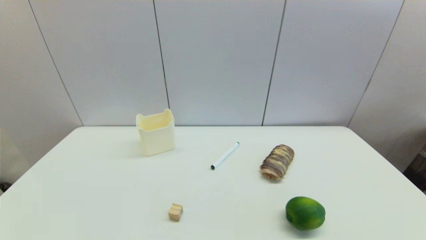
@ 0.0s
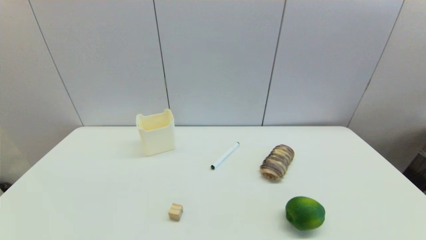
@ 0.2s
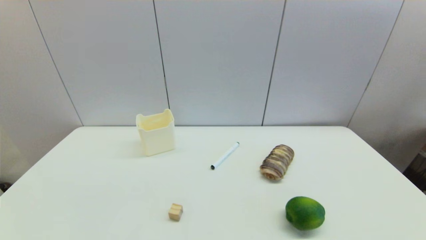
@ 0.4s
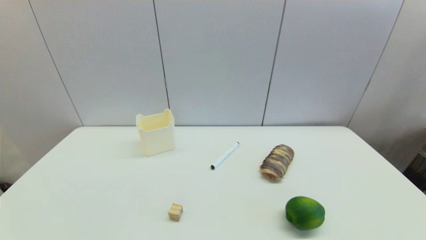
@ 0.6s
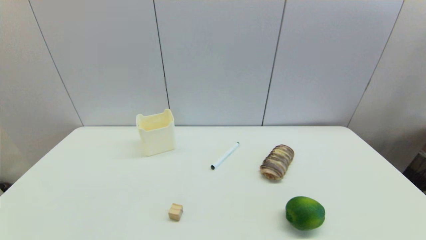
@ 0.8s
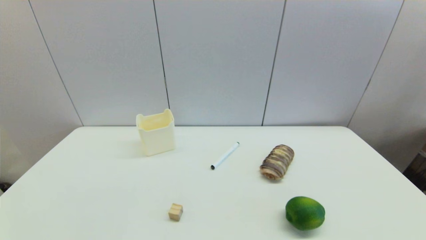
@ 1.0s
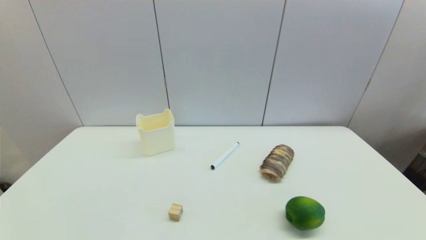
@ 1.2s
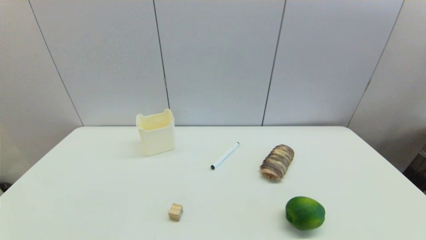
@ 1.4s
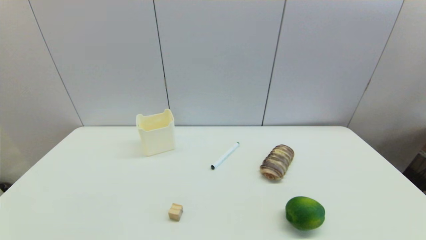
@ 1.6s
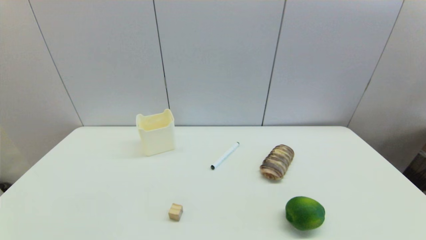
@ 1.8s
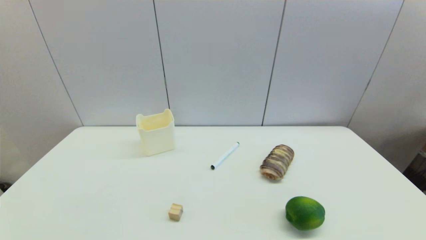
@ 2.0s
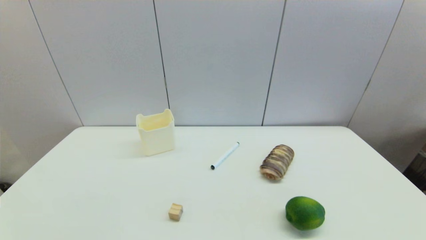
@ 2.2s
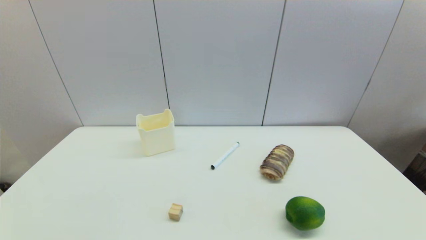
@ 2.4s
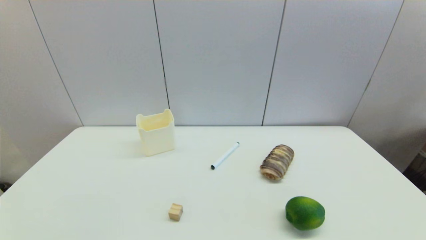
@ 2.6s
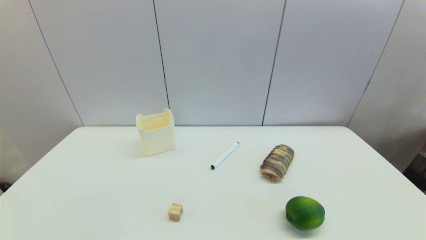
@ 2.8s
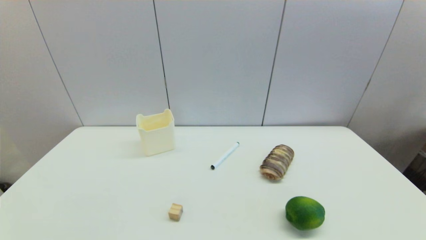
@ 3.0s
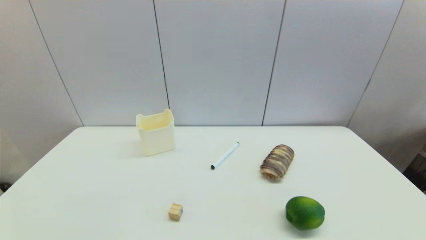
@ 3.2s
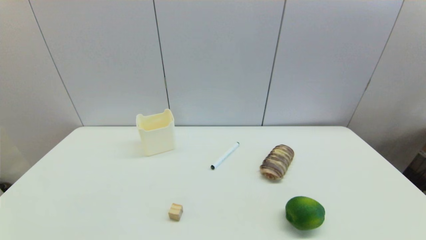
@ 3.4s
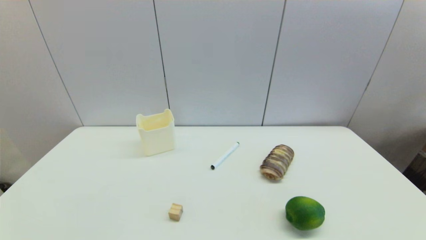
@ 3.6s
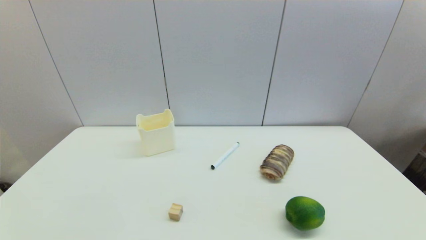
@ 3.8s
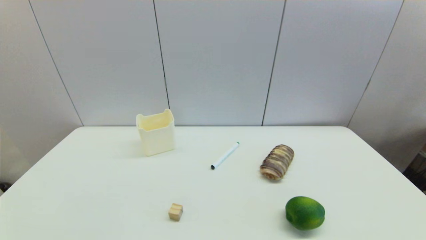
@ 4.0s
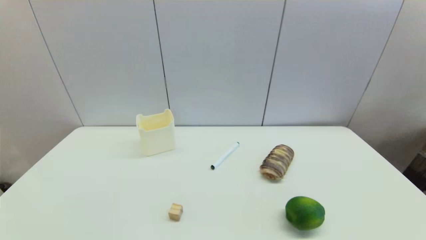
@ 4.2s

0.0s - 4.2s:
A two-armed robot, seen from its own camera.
2.8s - 4.2s: Neither gripper changes place.

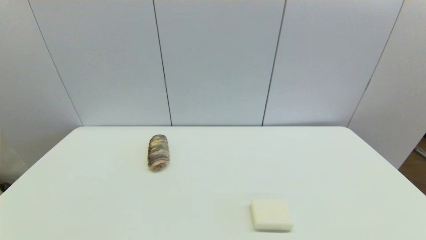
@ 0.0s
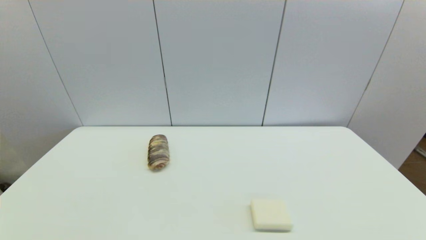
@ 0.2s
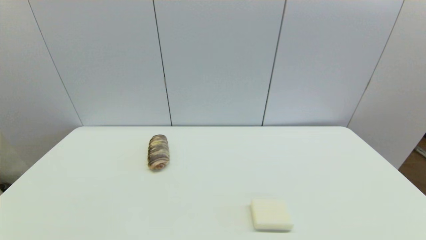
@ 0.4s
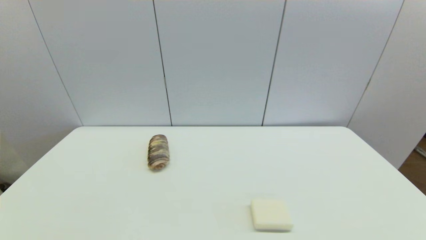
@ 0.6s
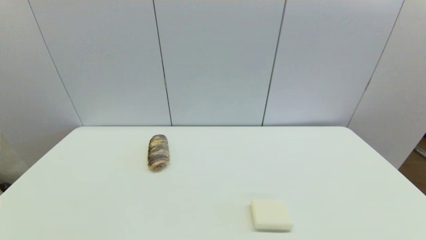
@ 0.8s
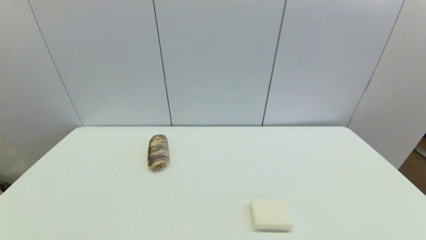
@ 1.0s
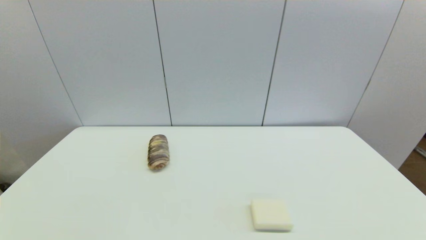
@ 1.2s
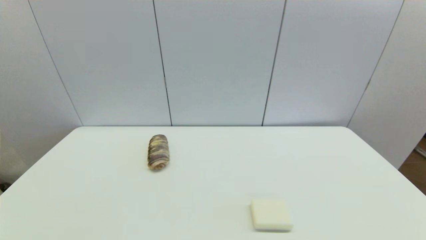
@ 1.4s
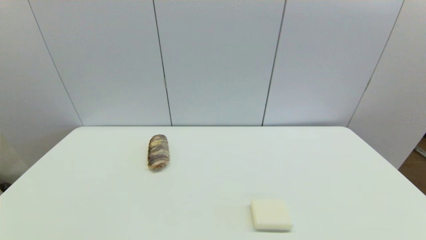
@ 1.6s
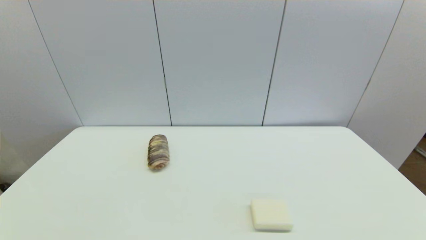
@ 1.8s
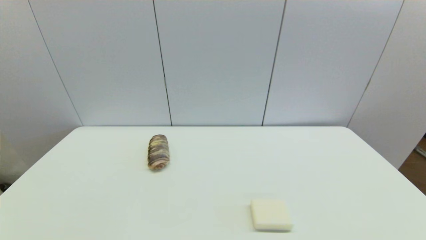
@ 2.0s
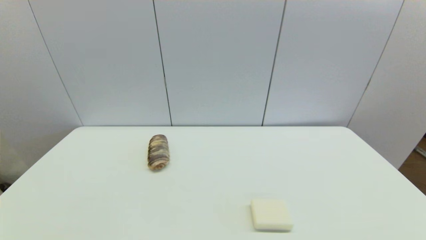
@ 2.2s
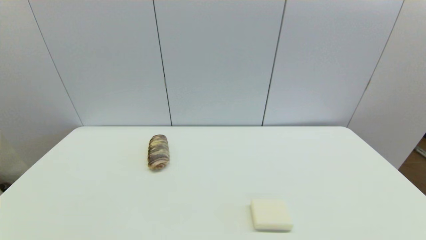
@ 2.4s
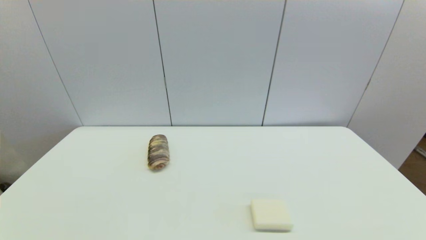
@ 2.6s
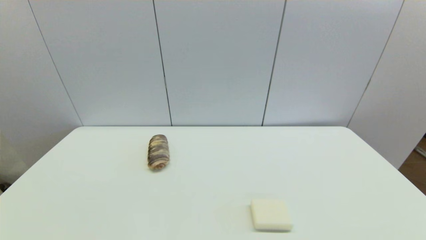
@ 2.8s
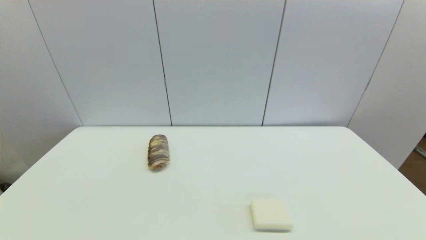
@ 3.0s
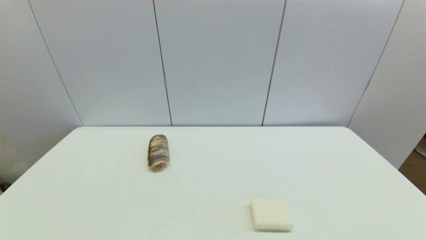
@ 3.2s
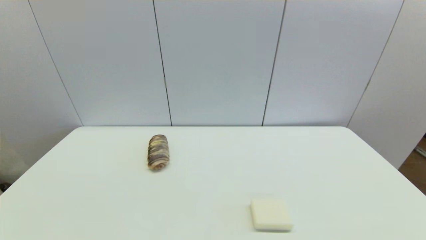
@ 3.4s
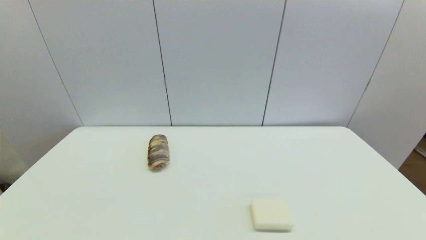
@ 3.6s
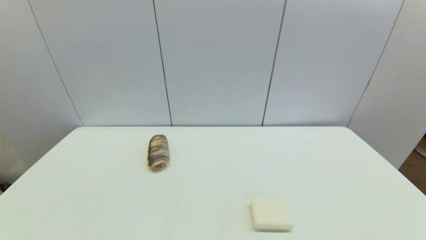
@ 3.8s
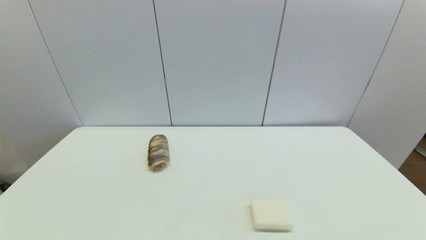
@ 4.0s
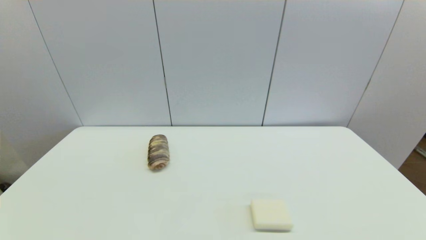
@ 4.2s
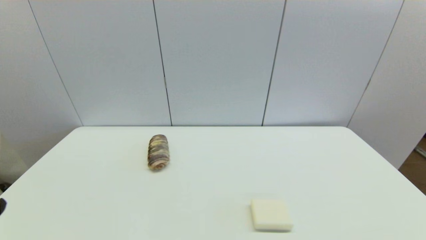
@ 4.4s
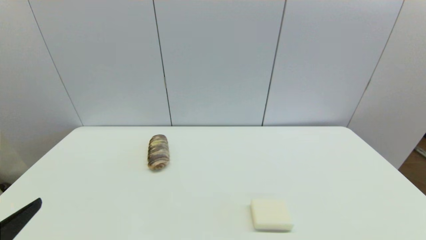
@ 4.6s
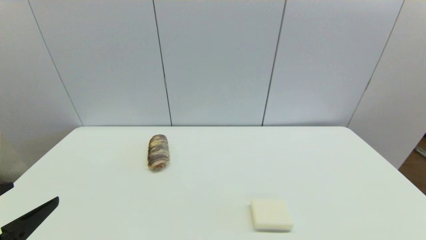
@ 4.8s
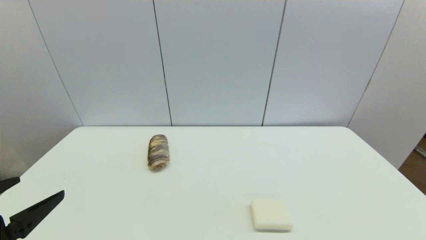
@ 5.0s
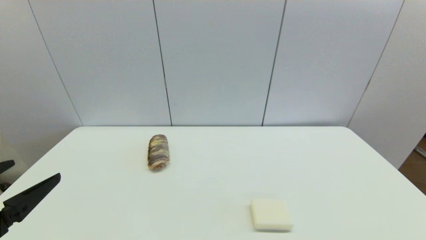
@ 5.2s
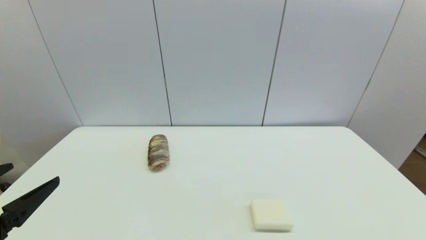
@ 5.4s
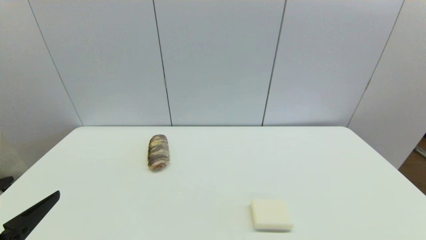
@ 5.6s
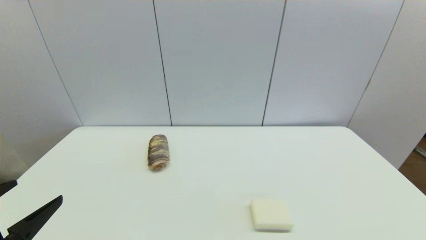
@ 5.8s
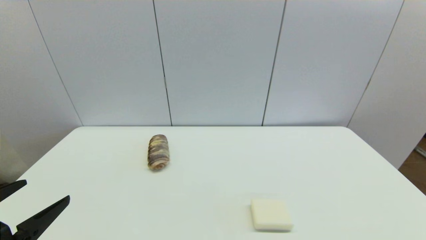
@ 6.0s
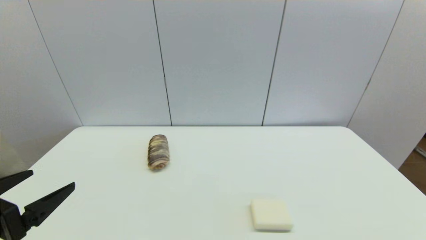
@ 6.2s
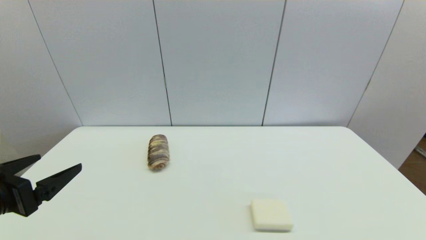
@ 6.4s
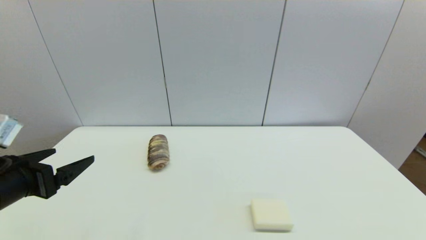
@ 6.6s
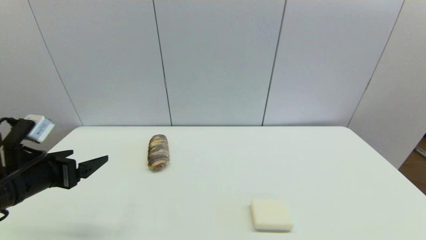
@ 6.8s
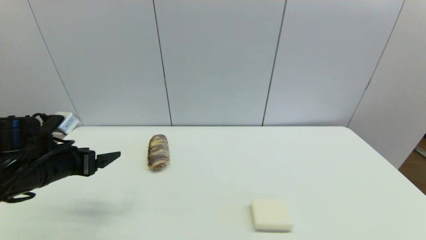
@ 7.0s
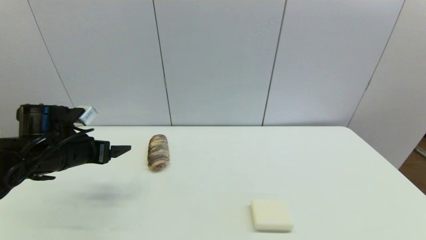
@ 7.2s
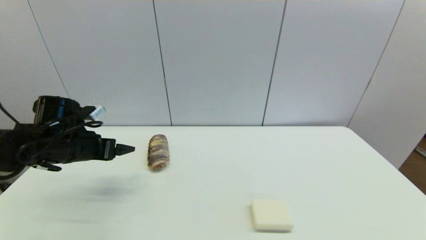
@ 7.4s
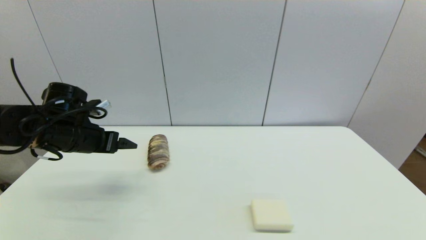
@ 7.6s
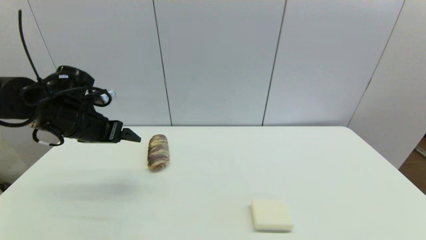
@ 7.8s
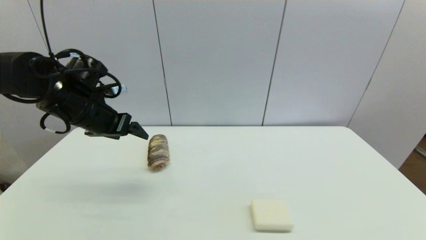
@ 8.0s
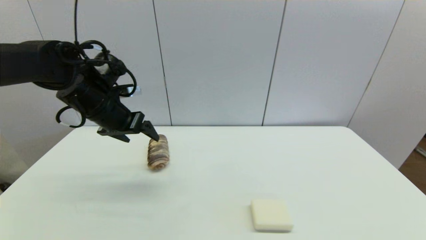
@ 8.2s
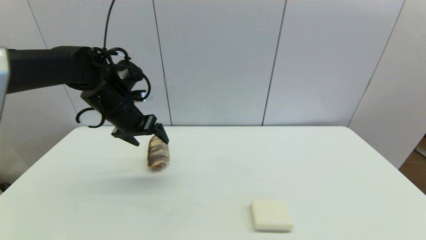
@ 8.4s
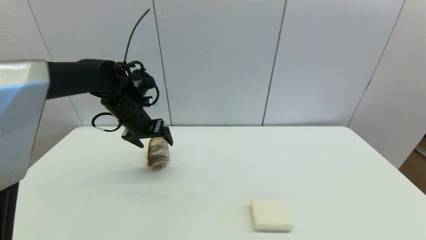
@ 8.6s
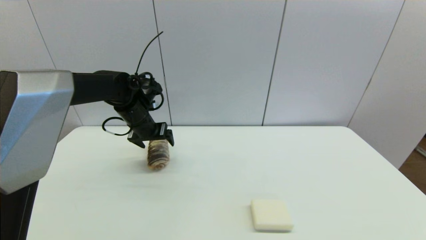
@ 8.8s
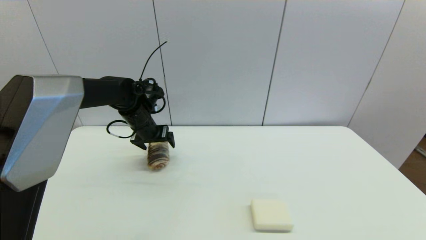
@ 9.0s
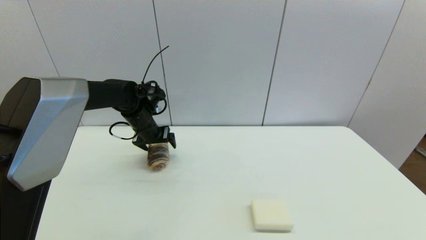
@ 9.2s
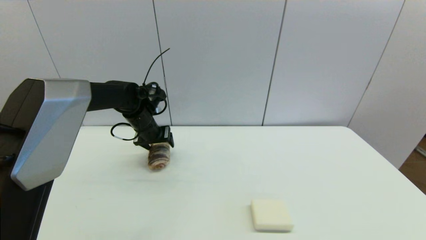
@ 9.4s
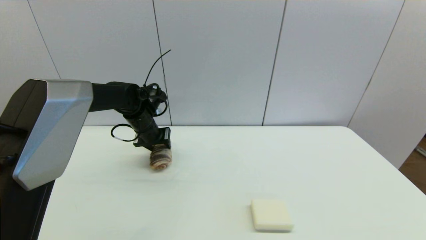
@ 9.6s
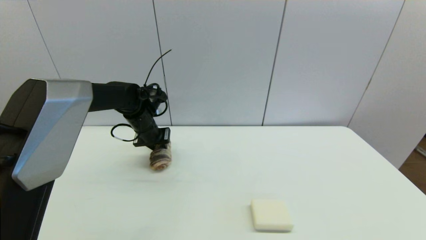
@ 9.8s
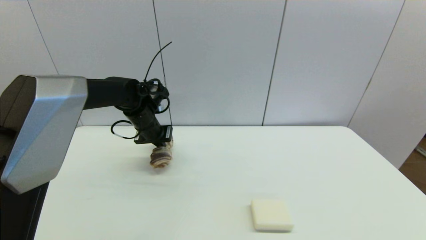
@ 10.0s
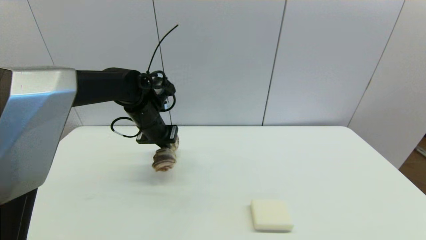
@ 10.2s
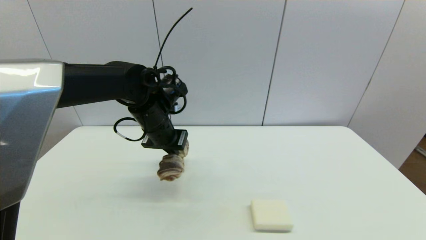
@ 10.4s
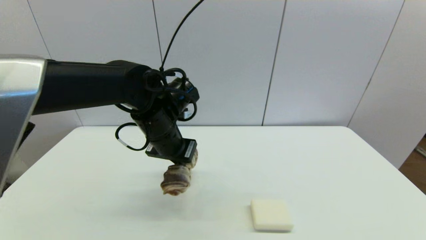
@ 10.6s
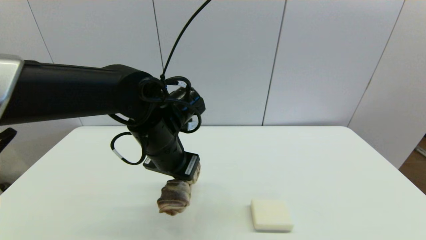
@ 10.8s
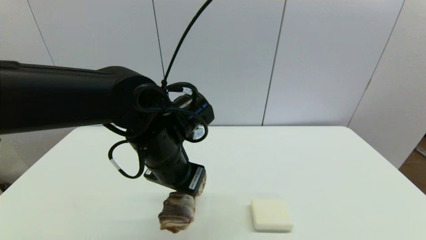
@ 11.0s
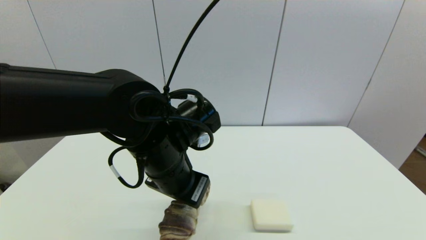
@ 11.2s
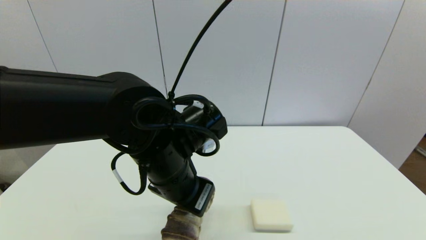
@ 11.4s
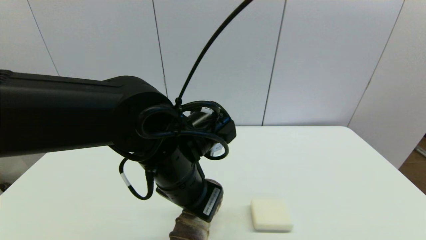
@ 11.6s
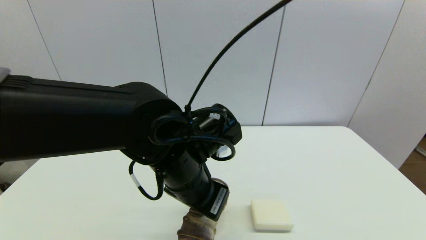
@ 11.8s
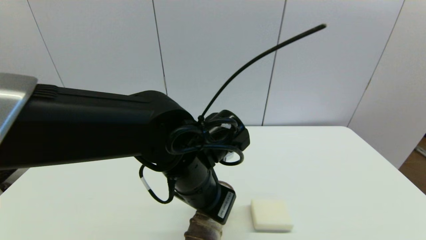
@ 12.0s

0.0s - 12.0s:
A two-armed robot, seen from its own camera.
Step, 4.4s - 9.8s: Grasp the long bread with left gripper.
0.0s - 1.6s: Both grippers stay put.
4.4s - 6.0s: The left gripper moves forward, some 5 cm.
6.0s - 7.6s: The left gripper travels forward by approximately 25 cm.
7.6s - 9.0s: The left gripper heads forward and to the right, covering approximately 15 cm.
9.0s - 10.4s: The left gripper heads backward and to the right, covering some 10 cm, and closes up.
10.4s - 12.0s: The left gripper shifts approximately 15 cm backward and to the right.

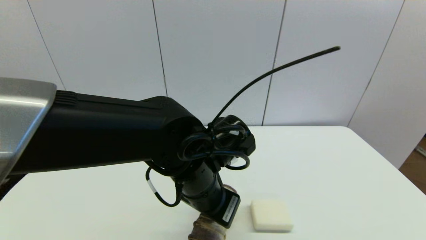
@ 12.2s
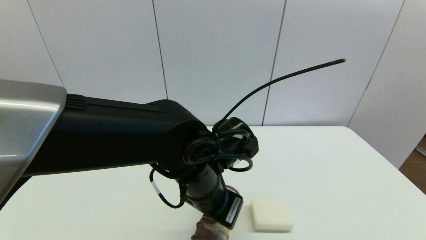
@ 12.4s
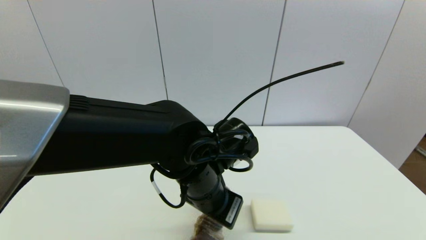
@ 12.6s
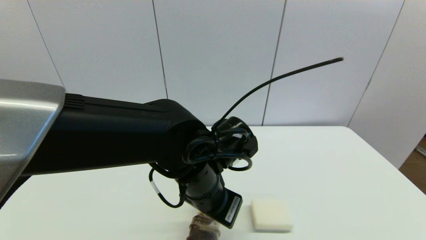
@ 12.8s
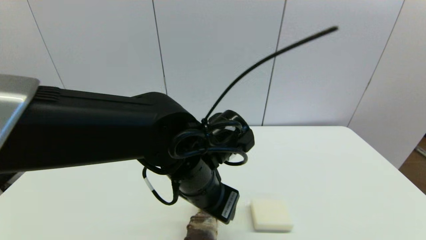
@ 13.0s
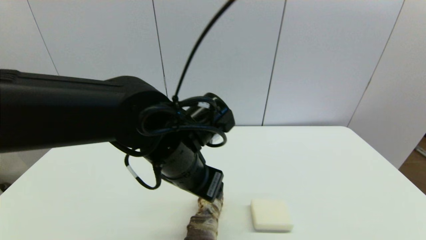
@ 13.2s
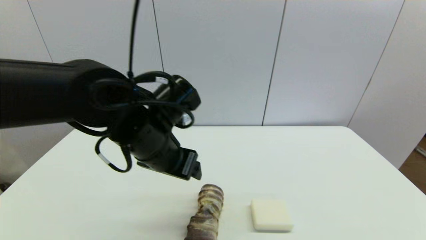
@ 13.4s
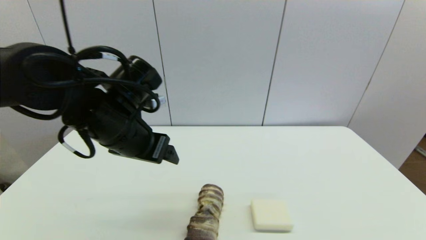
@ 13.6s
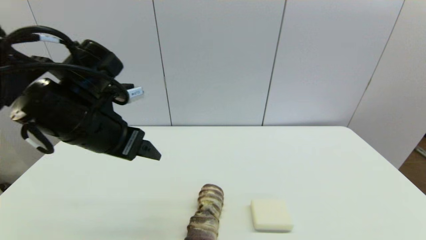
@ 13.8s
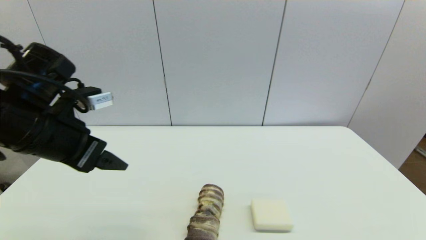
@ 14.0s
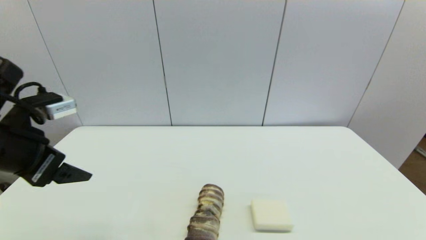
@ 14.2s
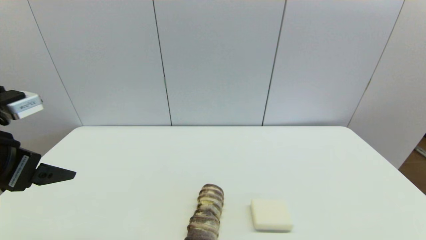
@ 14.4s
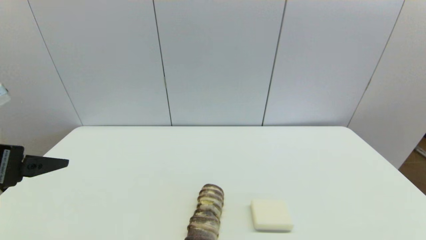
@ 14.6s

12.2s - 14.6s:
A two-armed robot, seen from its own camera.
12.2s - 13.4s: The left gripper travels to the left by approximately 10 cm, and opens its fingers.
13.4s - 14.6s: The left gripper goes some 25 cm to the left and backward.
